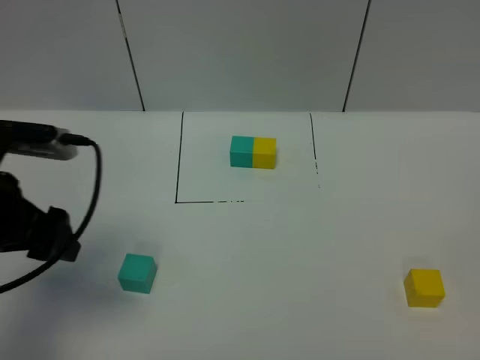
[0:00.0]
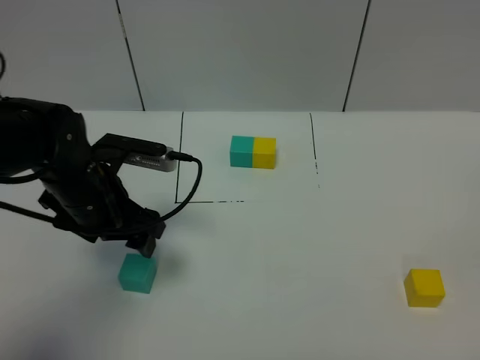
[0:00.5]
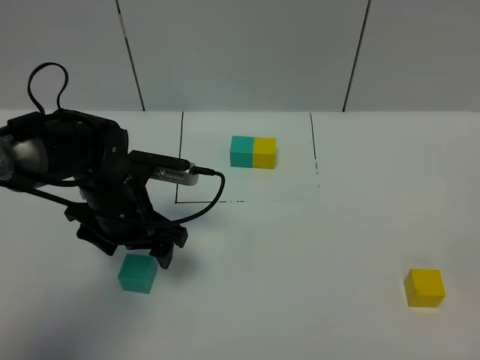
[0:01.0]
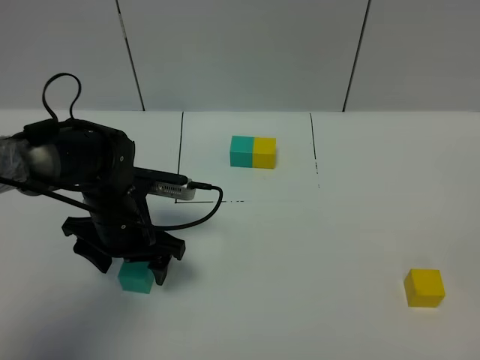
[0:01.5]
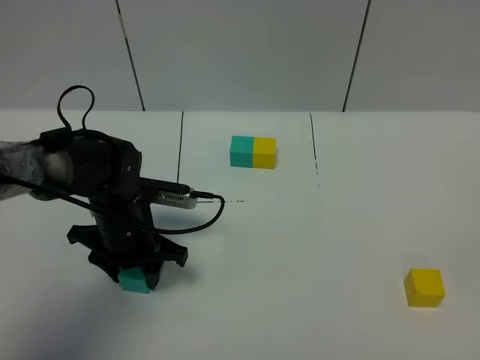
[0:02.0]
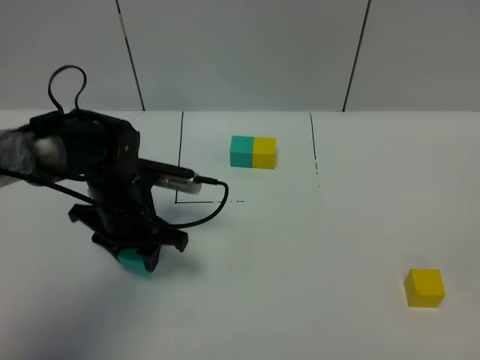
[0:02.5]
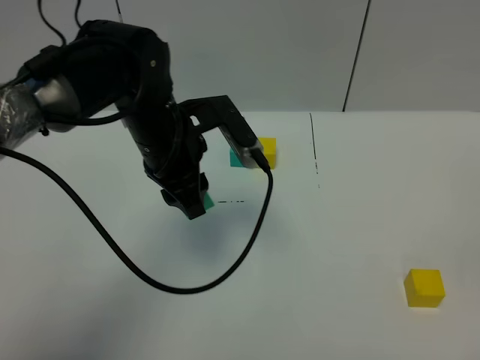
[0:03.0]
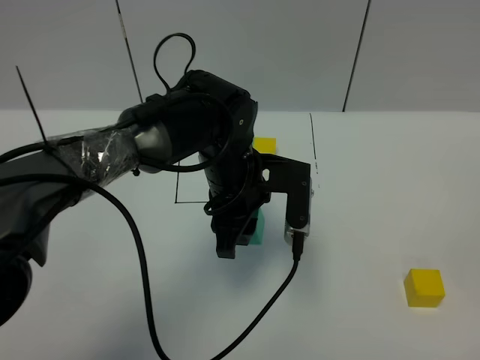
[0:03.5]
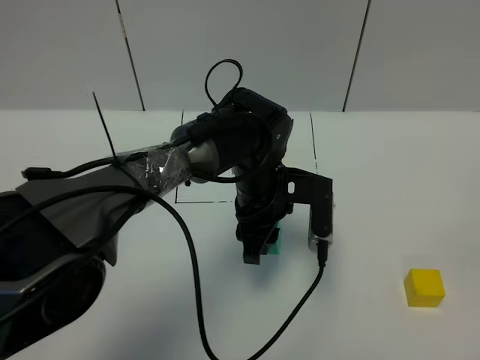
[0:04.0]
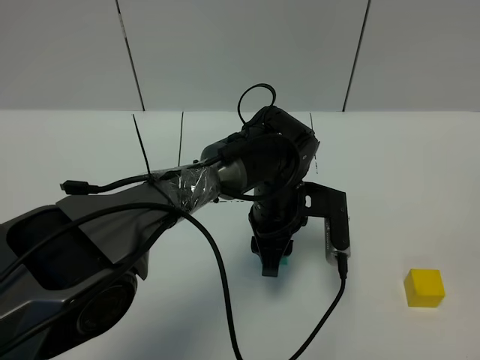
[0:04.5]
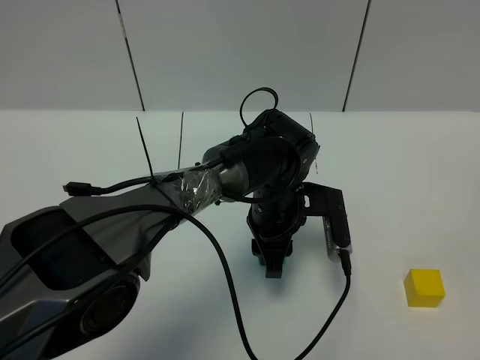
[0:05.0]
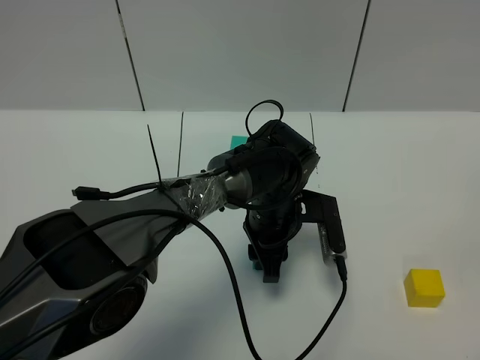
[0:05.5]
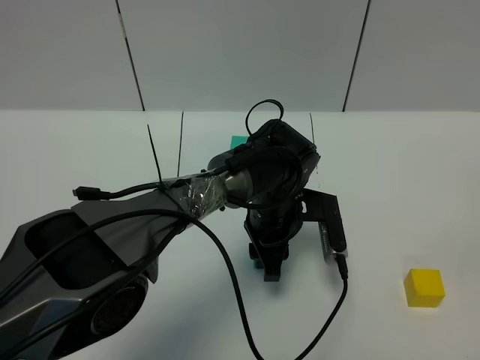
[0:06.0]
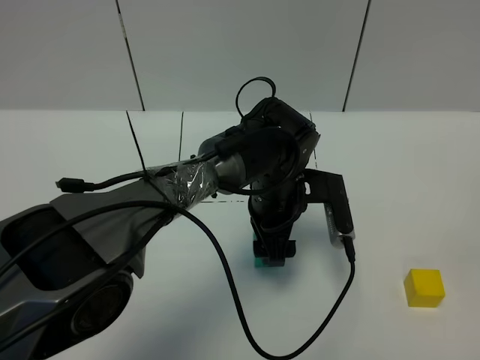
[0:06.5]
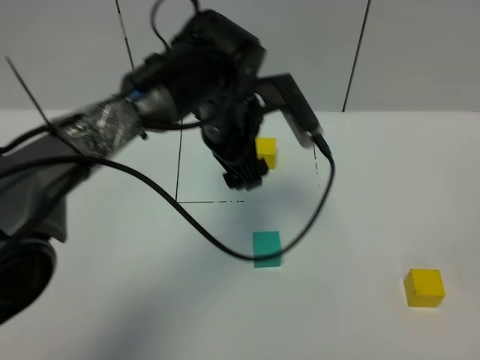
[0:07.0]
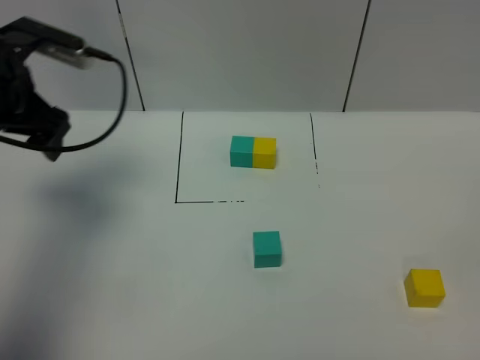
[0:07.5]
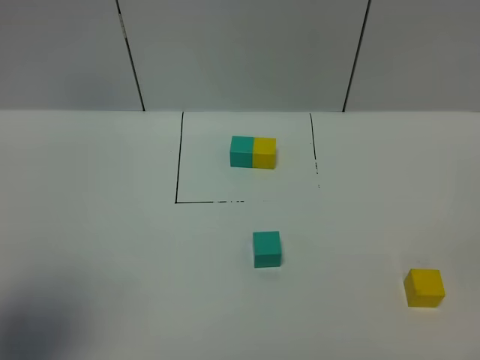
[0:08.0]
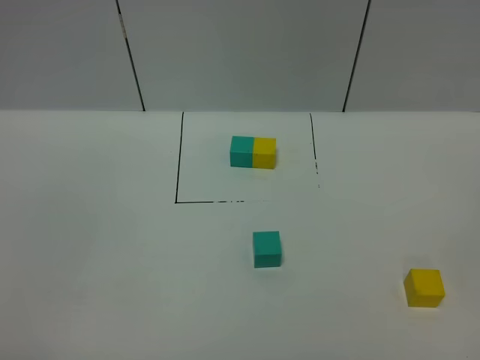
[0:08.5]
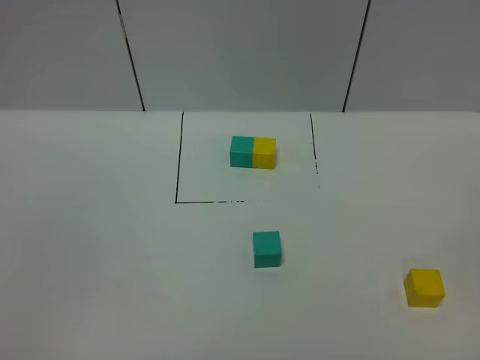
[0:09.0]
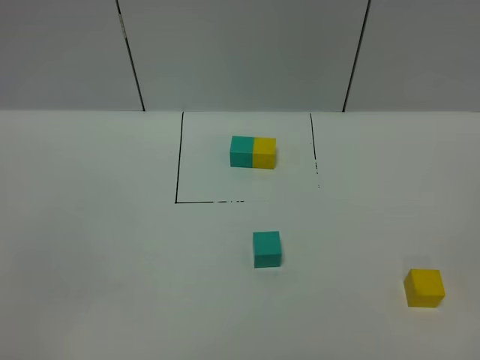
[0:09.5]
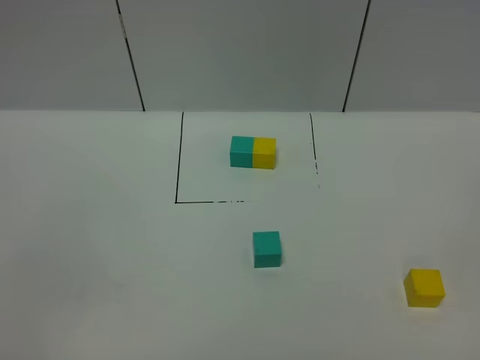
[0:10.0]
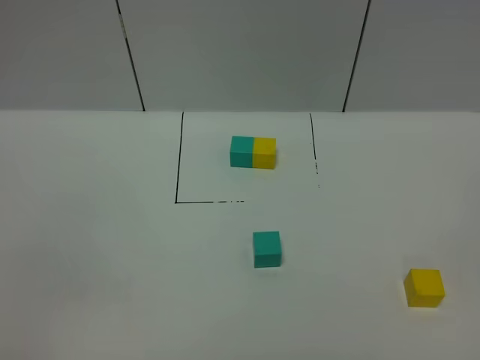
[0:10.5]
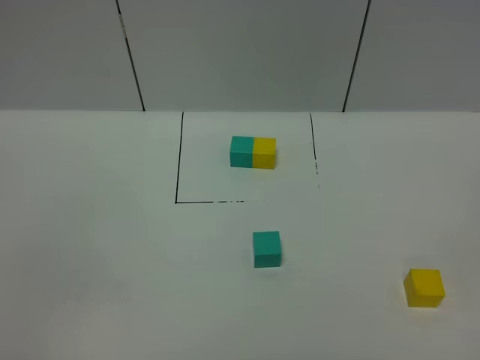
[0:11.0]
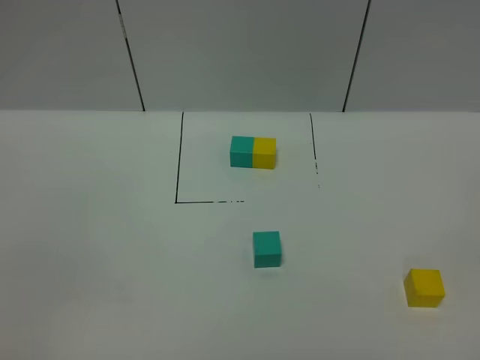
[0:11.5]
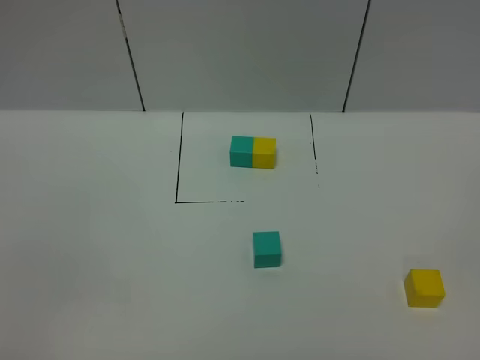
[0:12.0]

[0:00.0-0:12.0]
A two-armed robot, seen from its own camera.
Task of the whole recording: According to the building block template in front, assemble the scattered blocks together.
Step, 0:00.0 to 0:07.0: Put the green cube in the center of the table.
0:00.0 to 0:02.0: The left gripper is displaced downward, to the right and forward by some 20 cm, and closes its fingers.
0:02.0 to 0:04.0: The left gripper shifts approximately 20 cm to the right.
0:06.0 to 0:08.0: The left gripper heads to the left, upward and backward, covering roughly 50 cm, and opens its fingers.
0:08.0 to 0:10.0: The left gripper moves backward and downward, some 15 cm.
0:10.0 to 0:12.0: The two grippers keep their place.

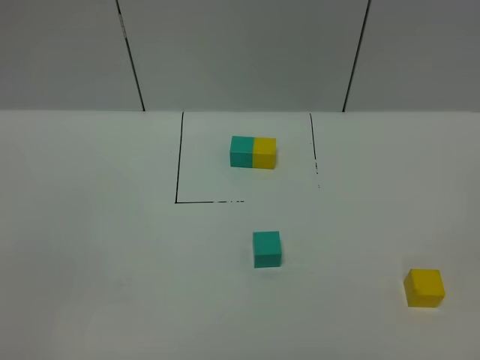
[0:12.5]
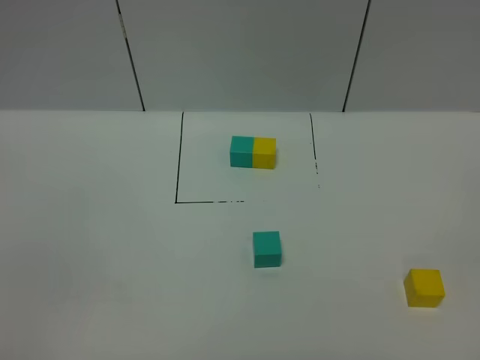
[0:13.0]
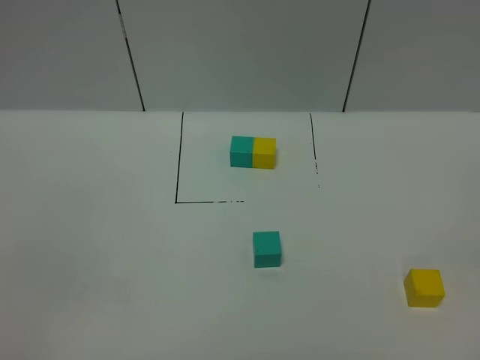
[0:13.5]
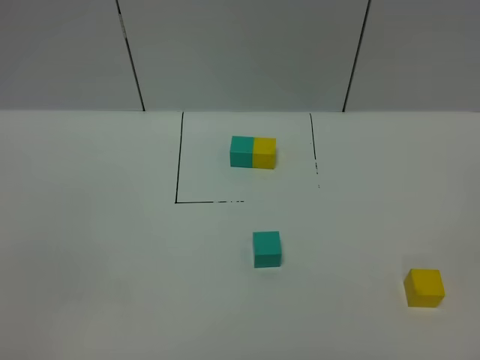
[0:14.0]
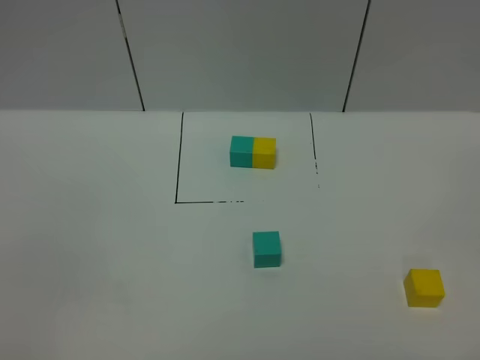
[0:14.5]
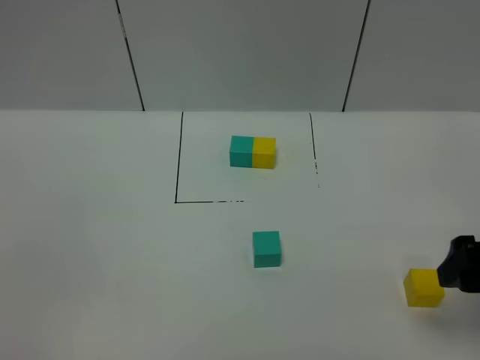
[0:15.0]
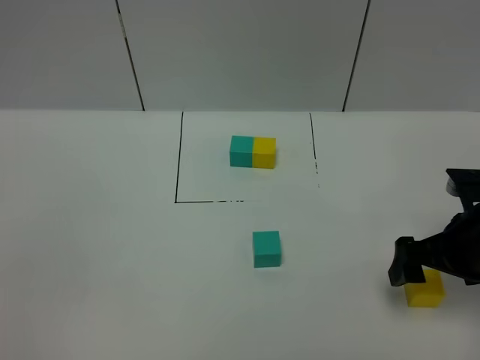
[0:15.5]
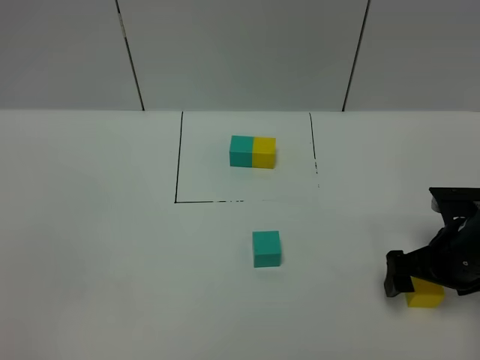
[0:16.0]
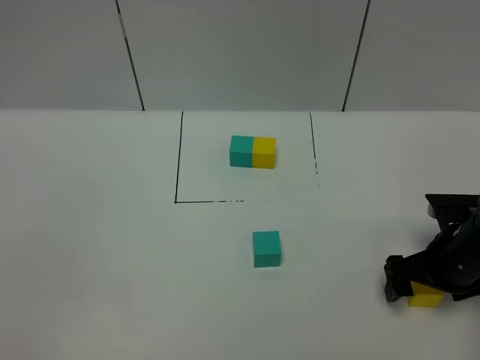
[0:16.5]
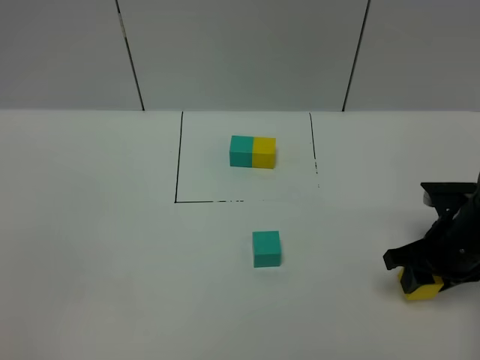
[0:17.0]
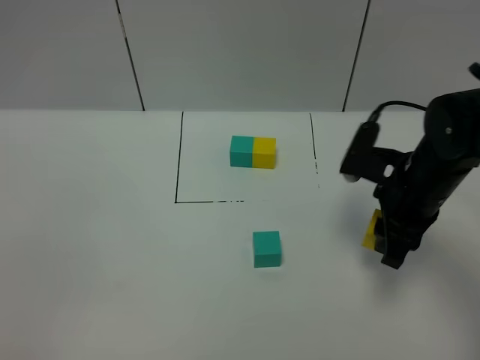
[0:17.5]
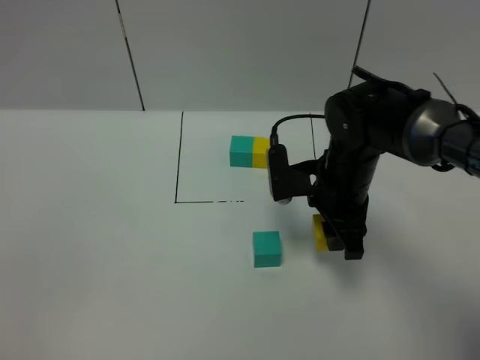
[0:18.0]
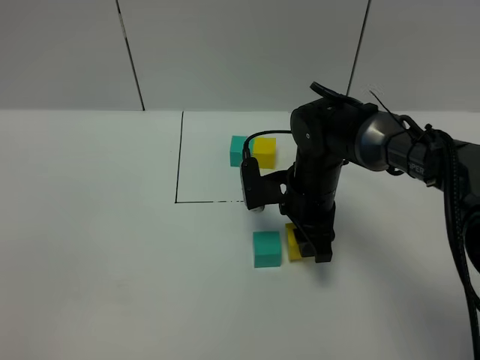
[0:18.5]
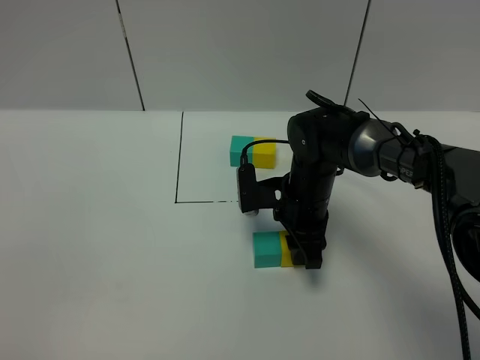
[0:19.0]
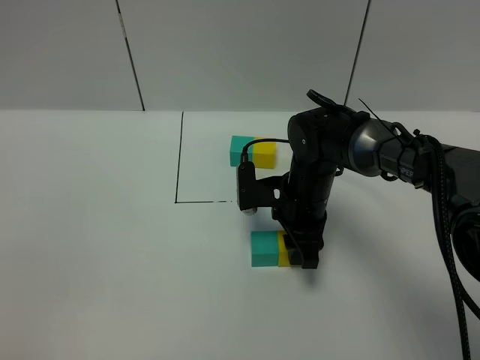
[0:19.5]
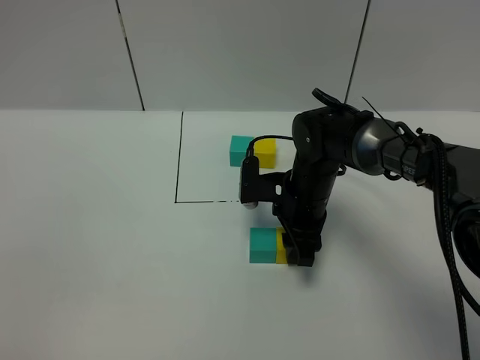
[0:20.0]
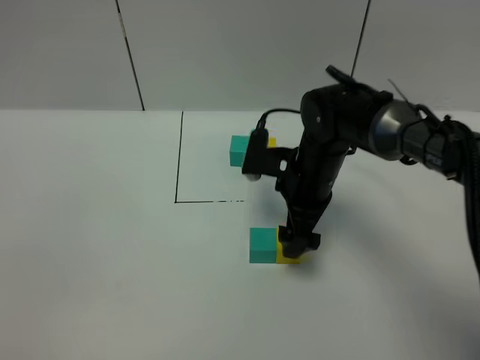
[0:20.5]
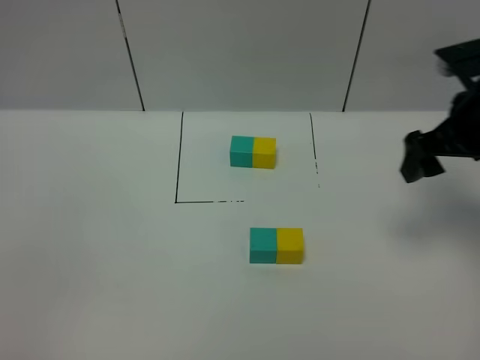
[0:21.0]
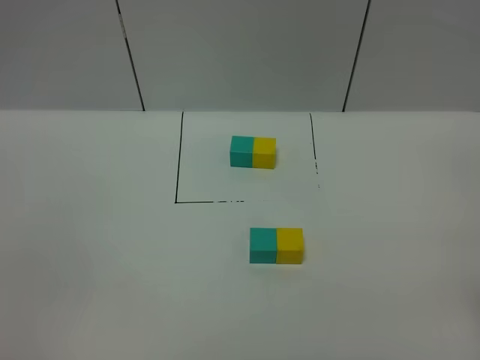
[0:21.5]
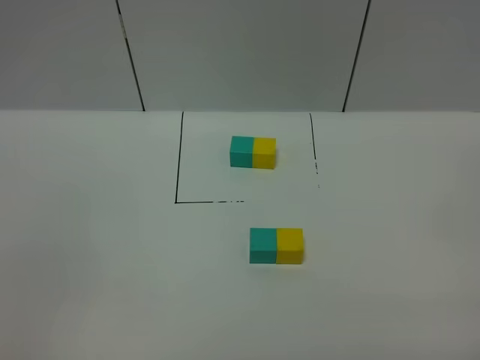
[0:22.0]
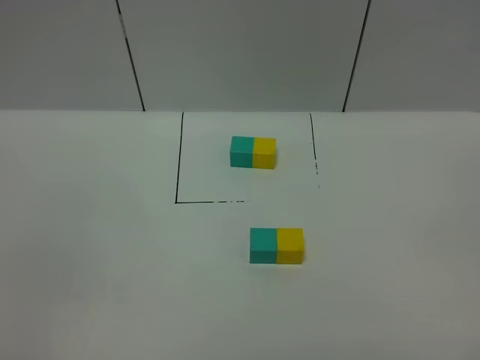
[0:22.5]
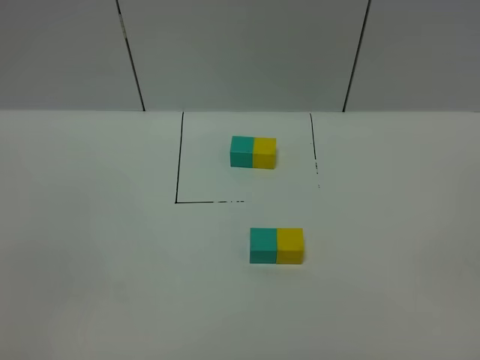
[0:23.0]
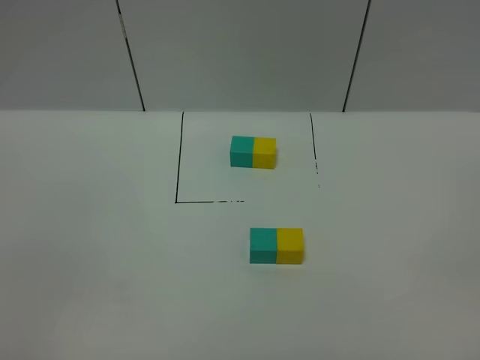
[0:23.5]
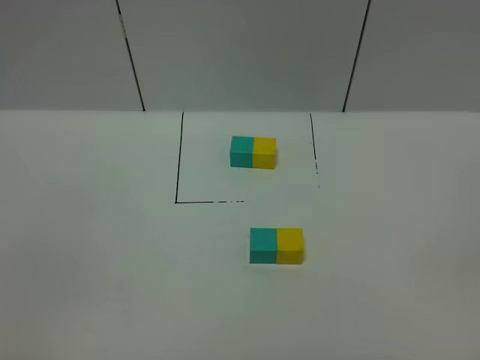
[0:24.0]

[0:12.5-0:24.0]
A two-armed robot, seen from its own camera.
Task of the whole recording: According to the building block template in front, assemble the scattered blocks together.
Step, 0:12.5 to 0:20.5: Put the yellow cube on the right of the green cube.
0:14.5 to 0:16.5: The right gripper travels forward and downward by some 30 cm.
0:16.5 to 0:18.5: The right gripper heads to the left and forward, covering some 20 cm, and closes up.
0:18.5 to 0:20.0: The grippers stay close to where they were, moving slightly.
0:20.0 to 0:22.0: The right gripper moves backward, to the right and upward, about 40 cm, and opens up.

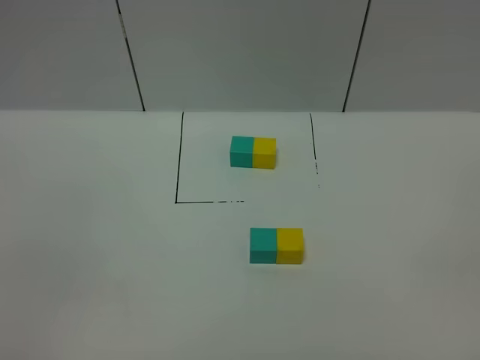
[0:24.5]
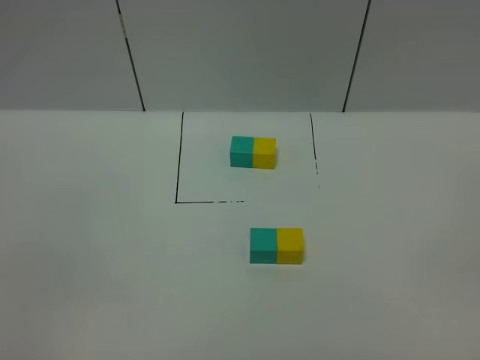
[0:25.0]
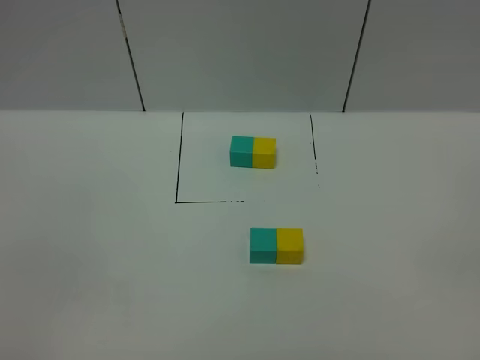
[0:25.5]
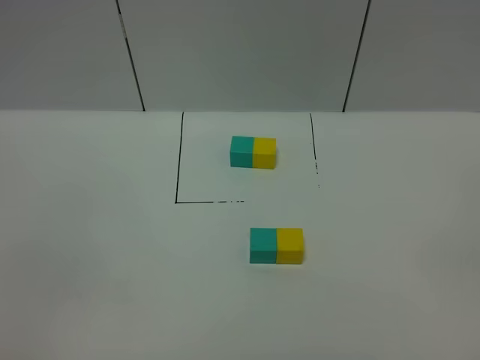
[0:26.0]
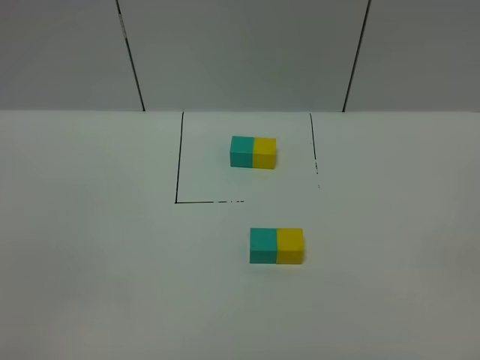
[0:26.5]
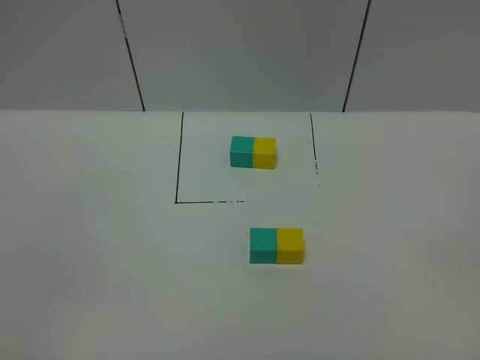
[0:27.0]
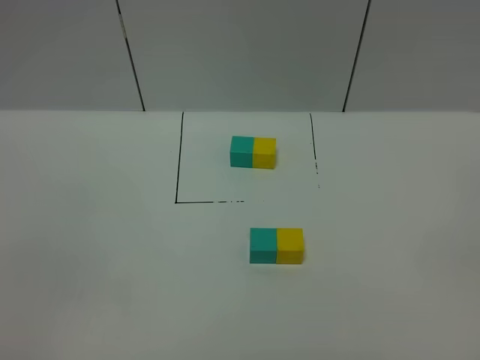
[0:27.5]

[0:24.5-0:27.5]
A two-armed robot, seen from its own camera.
Task of the whole recording: According to the building block template in front, assemble the scattered blocks together.
0:26.0 to 0:27.5: Neither gripper changes place.
